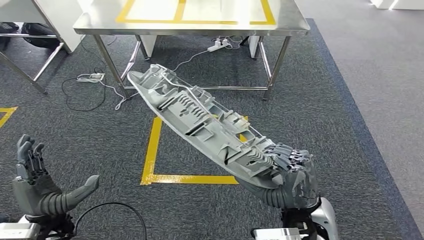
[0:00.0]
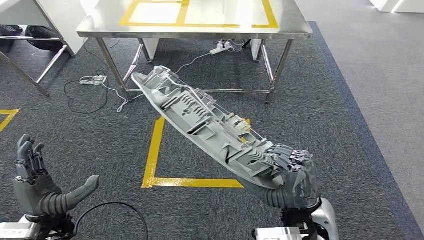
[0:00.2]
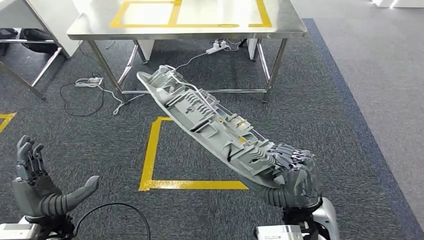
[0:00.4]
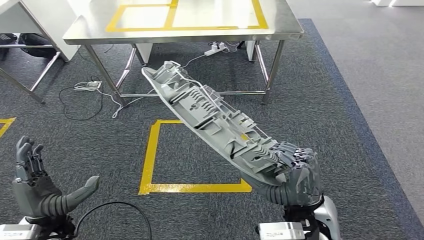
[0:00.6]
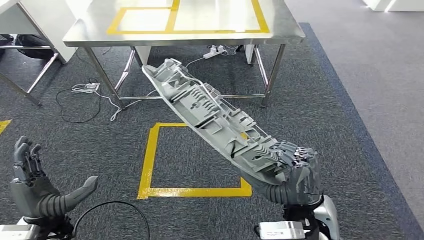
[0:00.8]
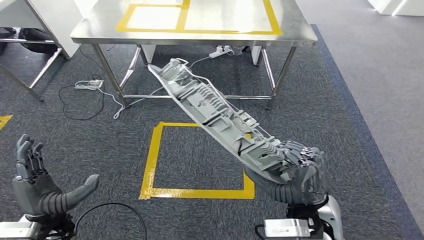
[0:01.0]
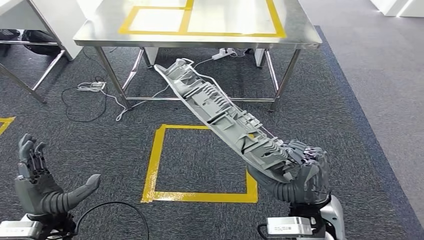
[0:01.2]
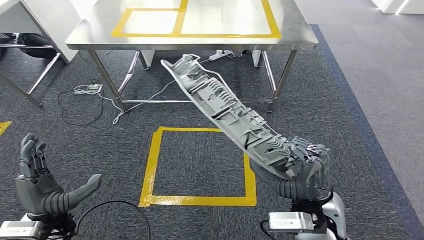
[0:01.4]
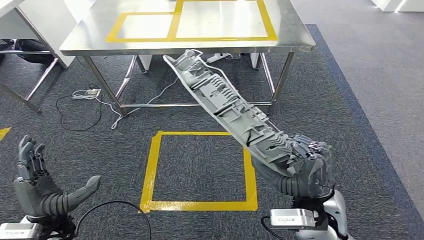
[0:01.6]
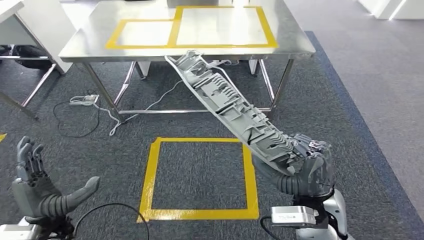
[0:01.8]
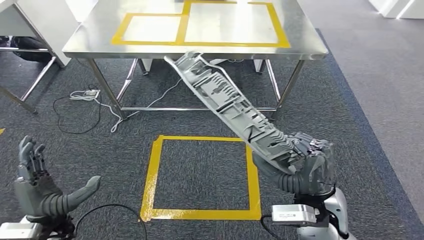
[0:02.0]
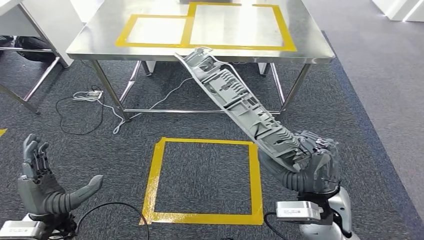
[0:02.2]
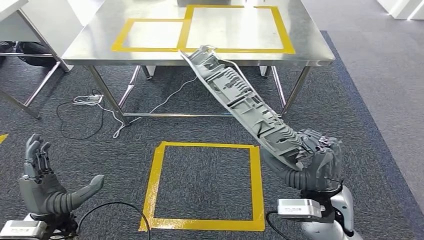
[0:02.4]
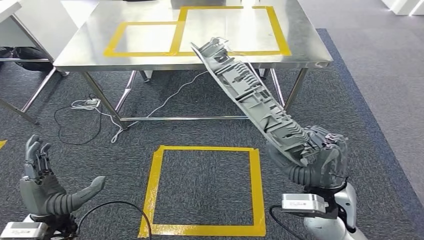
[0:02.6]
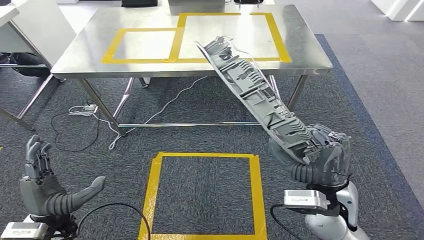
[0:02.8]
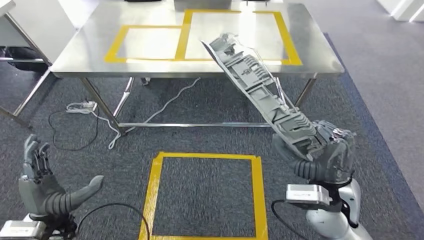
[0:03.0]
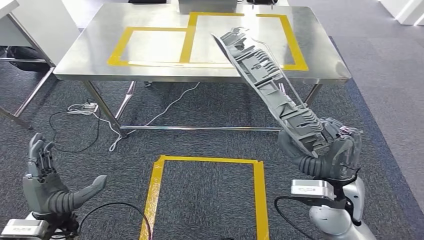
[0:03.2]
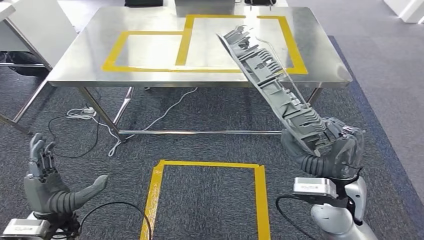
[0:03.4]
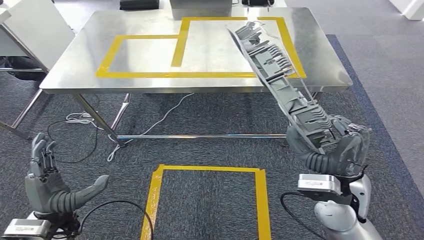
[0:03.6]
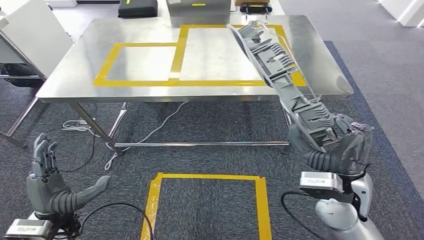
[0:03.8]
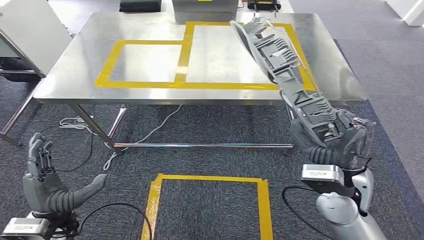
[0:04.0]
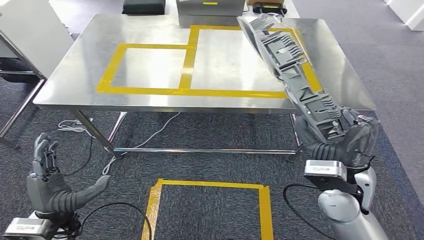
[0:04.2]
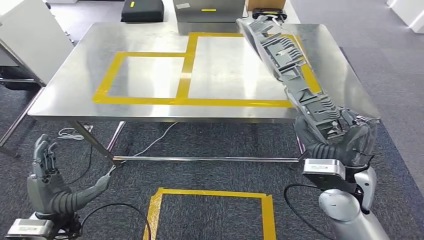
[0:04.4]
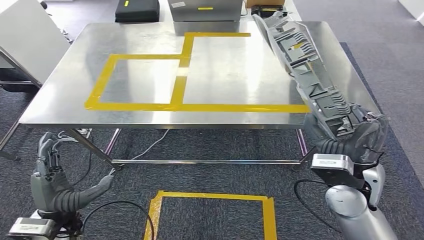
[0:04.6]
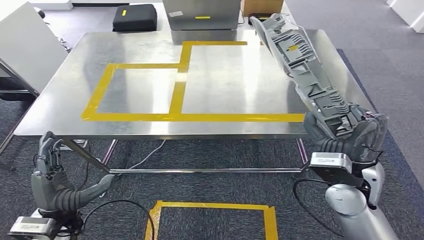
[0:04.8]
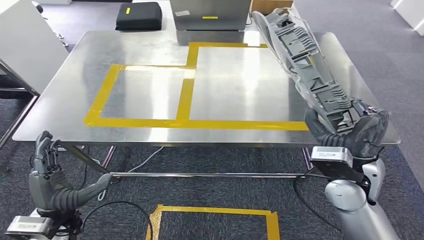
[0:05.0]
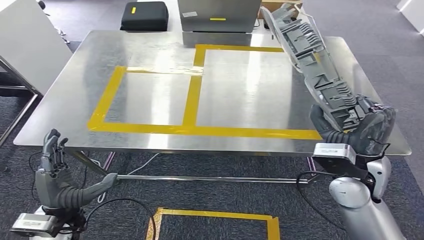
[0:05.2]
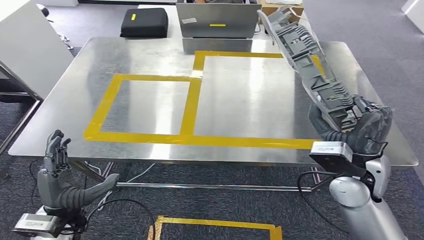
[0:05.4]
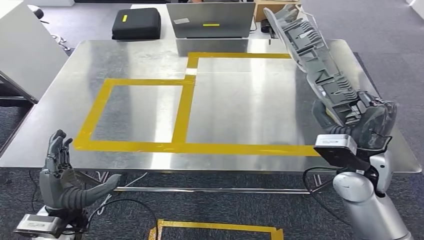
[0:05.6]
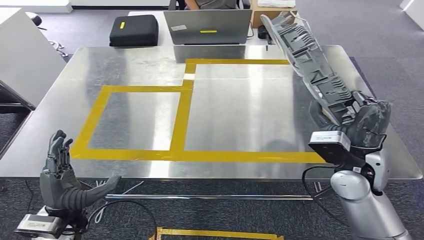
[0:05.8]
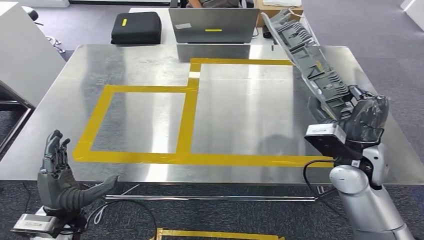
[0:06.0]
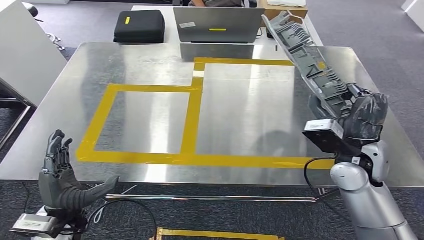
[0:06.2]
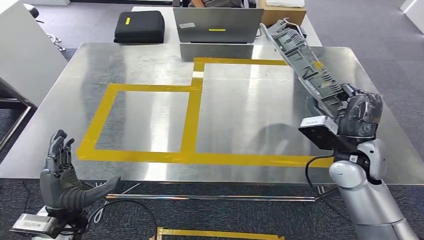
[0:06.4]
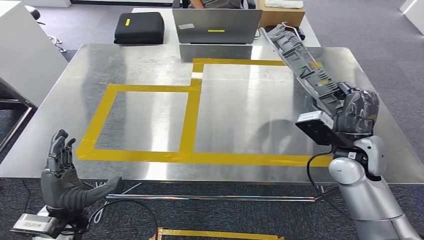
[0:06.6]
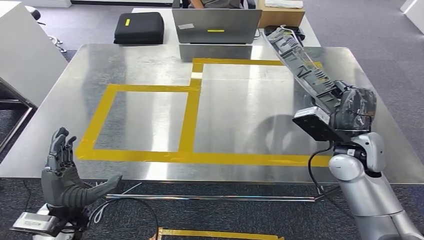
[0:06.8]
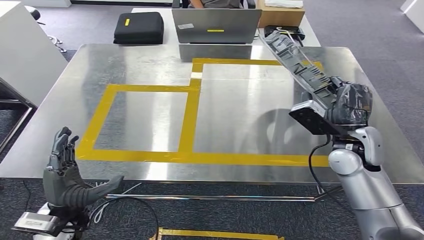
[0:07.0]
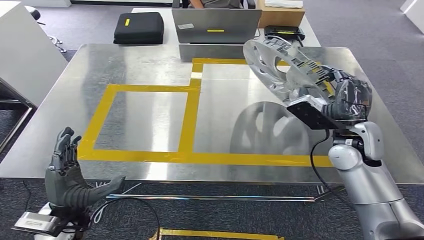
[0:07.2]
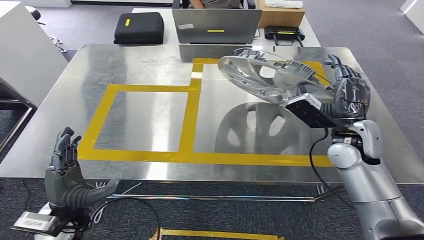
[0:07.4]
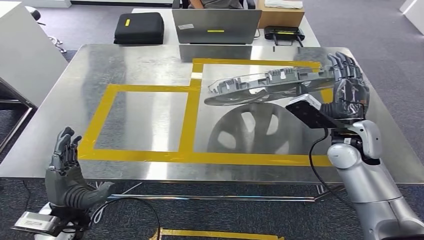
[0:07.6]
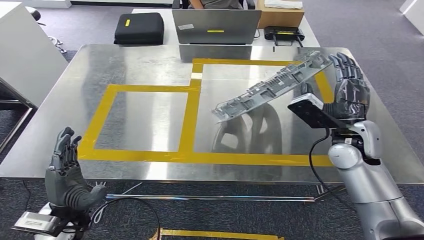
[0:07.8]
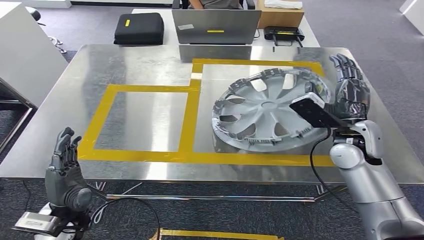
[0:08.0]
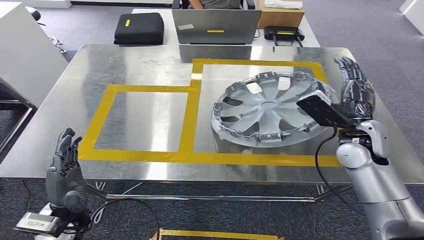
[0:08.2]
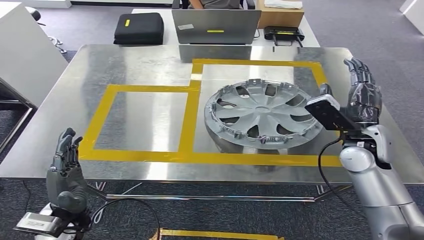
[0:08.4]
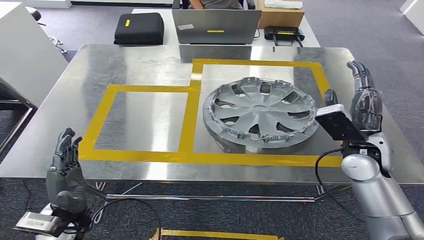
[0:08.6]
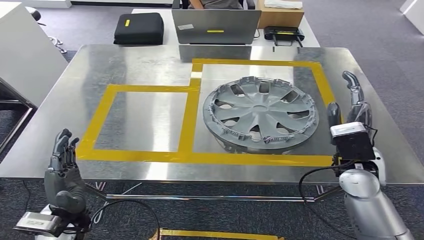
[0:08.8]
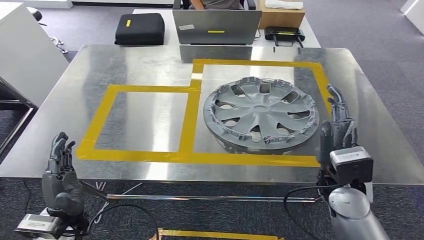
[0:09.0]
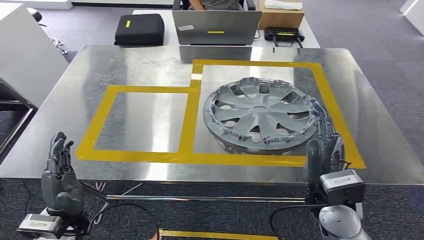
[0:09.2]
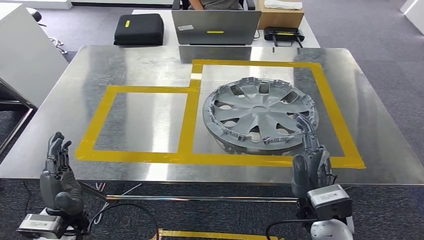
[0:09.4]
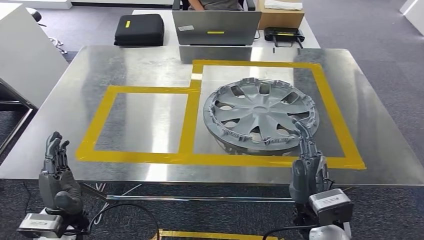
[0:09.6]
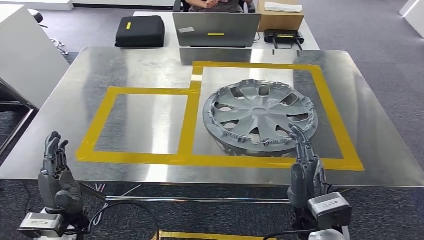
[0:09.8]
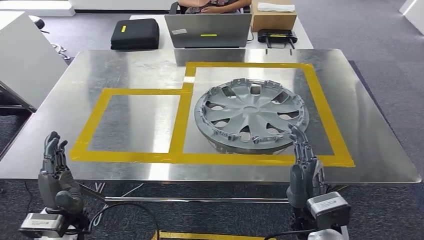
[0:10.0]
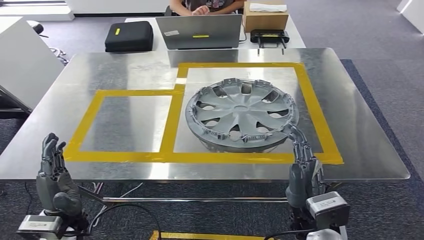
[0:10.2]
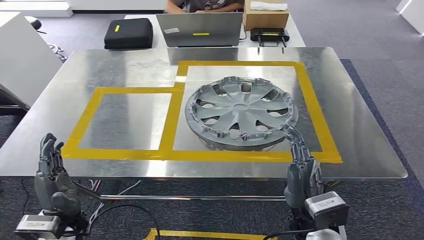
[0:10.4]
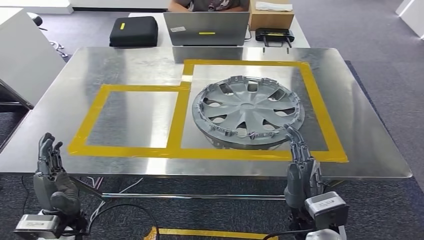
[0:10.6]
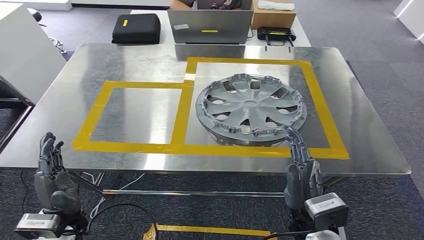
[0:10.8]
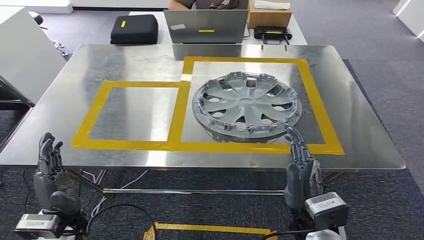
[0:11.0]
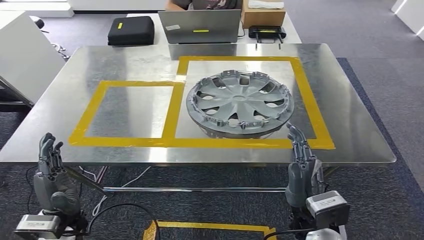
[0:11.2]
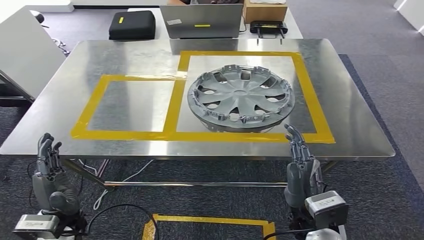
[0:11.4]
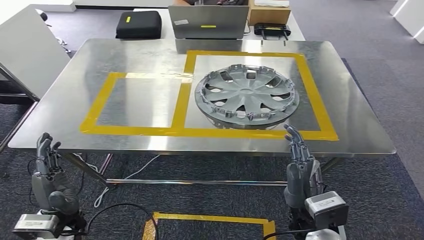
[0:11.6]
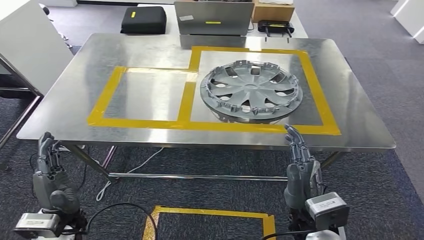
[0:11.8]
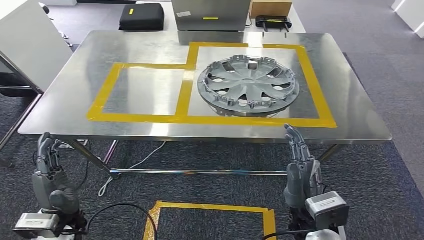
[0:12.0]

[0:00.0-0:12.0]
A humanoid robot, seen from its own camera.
Step, 0:00.0 to 0:03.8: Move the small parts to the workbench.
Step, 0:04.0 to 0:09.8: Insert the small parts into the corresponding holes on the workbench.

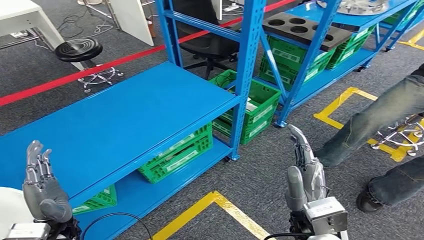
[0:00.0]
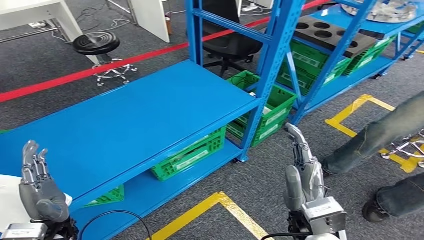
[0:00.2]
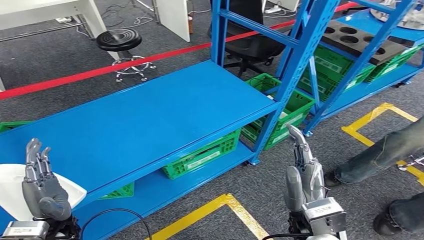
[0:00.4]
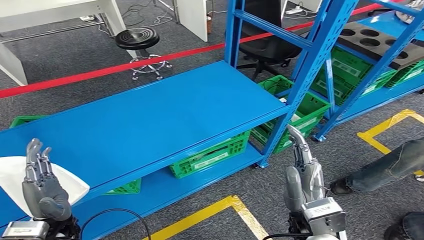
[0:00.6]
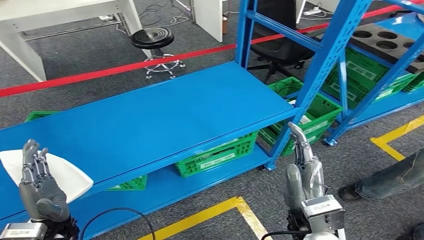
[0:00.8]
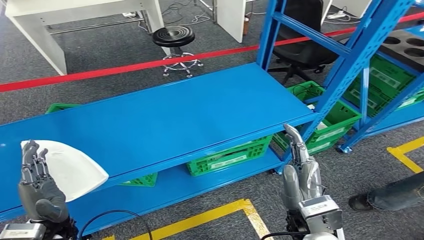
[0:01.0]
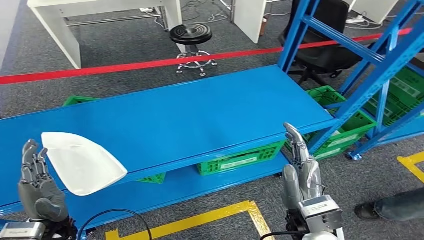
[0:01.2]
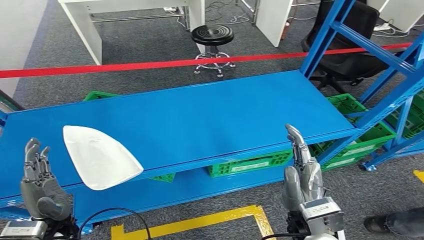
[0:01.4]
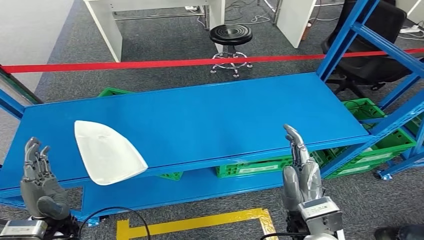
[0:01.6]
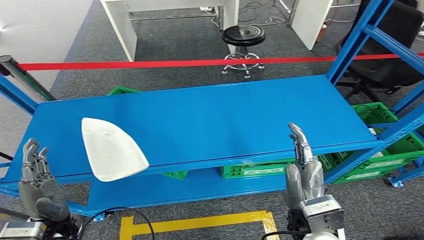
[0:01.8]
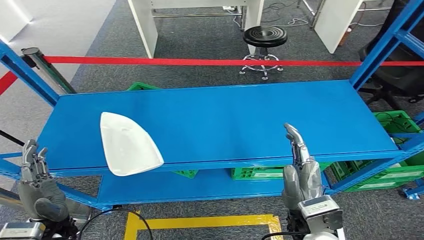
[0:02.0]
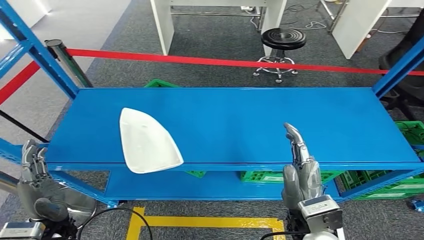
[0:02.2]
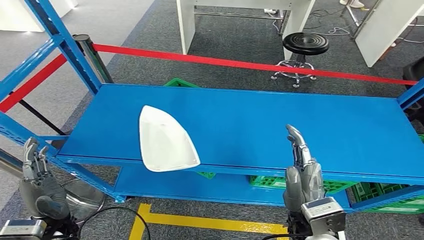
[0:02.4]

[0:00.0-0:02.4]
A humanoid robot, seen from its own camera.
Step, 0:00.0 to 0:02.4: Move to the initial position of the workbench.

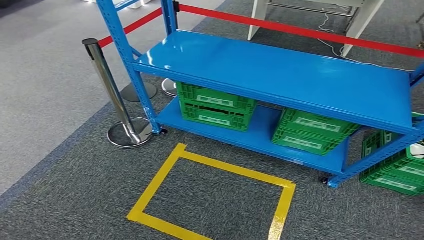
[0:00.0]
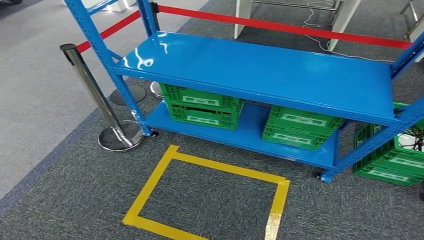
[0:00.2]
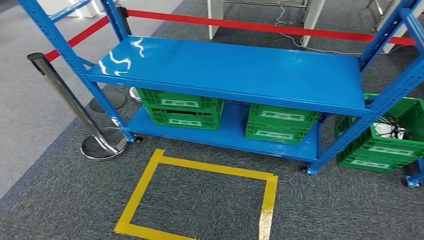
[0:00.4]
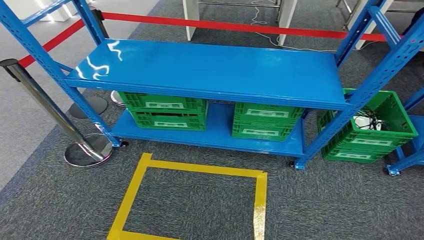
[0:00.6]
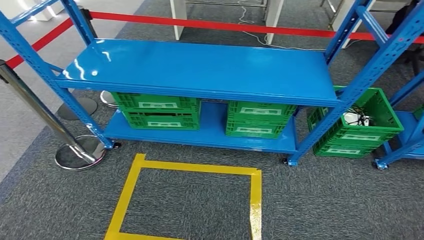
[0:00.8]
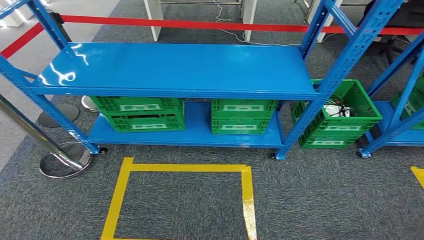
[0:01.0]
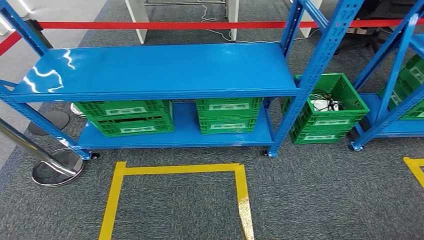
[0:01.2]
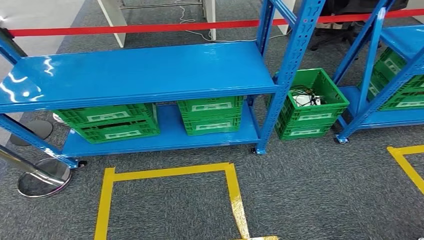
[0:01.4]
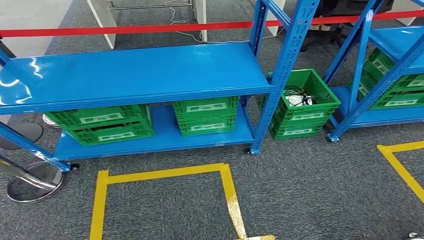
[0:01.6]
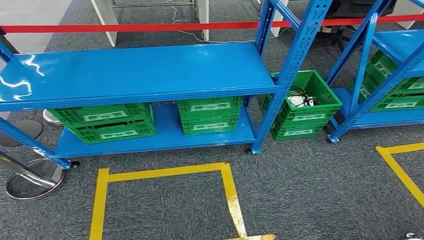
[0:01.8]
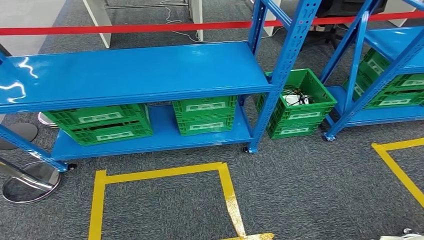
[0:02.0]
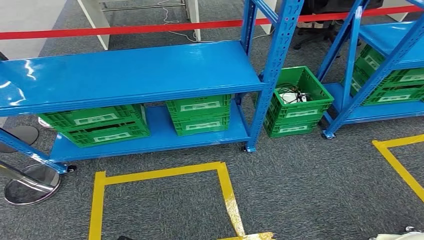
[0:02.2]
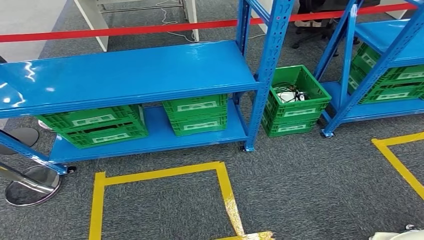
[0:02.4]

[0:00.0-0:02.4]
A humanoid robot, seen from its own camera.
Step, 0:00.0 to 0:02.4: Move to the initial position of the workbench.
